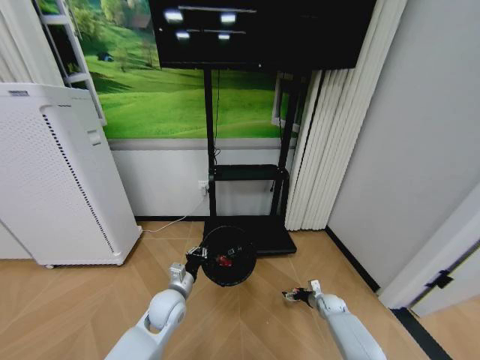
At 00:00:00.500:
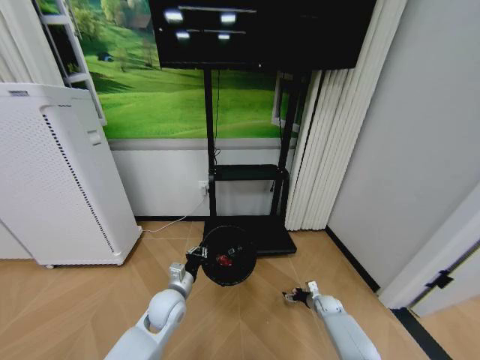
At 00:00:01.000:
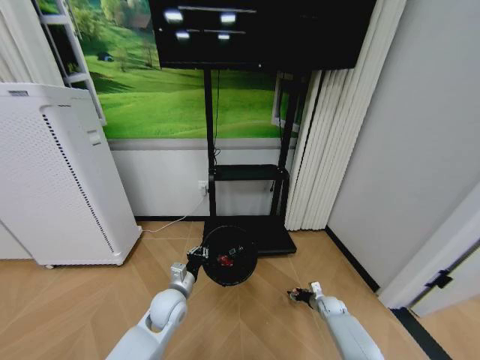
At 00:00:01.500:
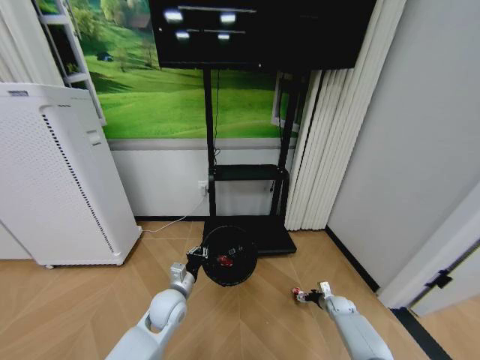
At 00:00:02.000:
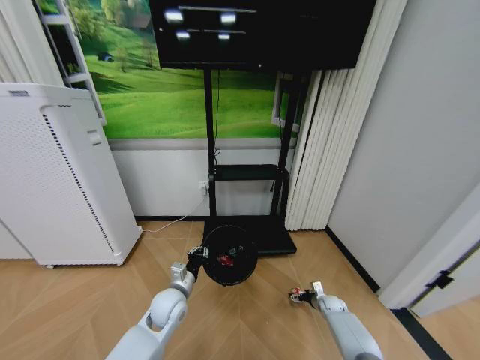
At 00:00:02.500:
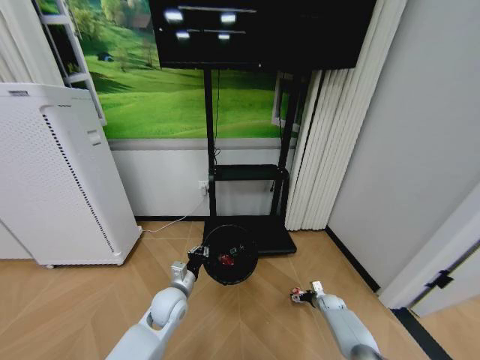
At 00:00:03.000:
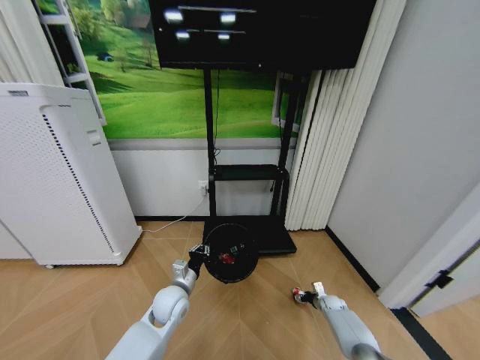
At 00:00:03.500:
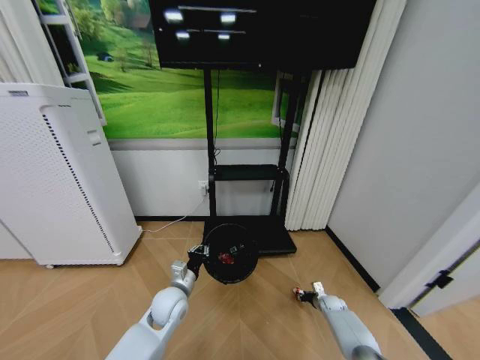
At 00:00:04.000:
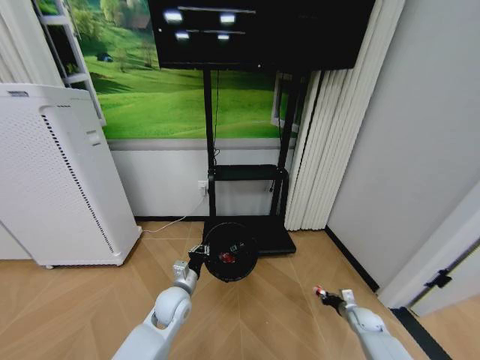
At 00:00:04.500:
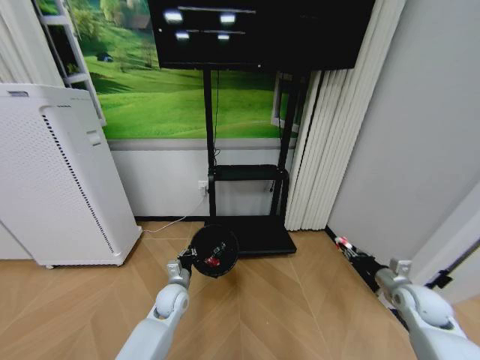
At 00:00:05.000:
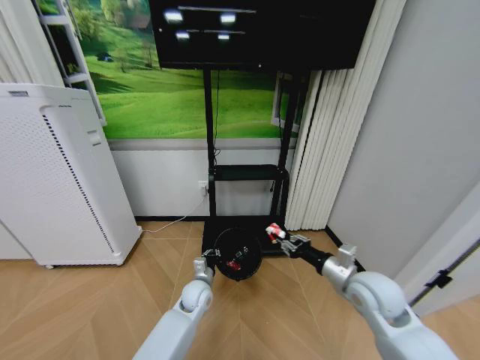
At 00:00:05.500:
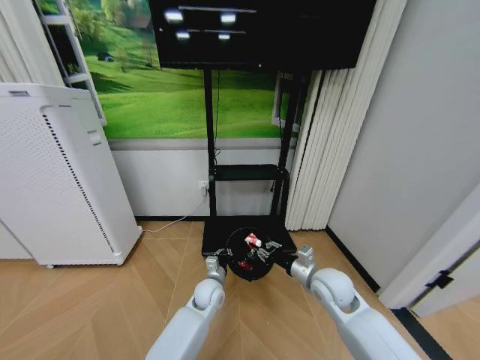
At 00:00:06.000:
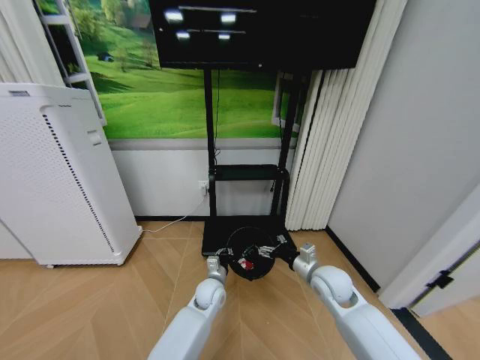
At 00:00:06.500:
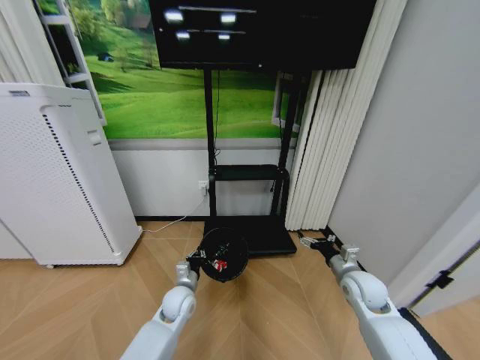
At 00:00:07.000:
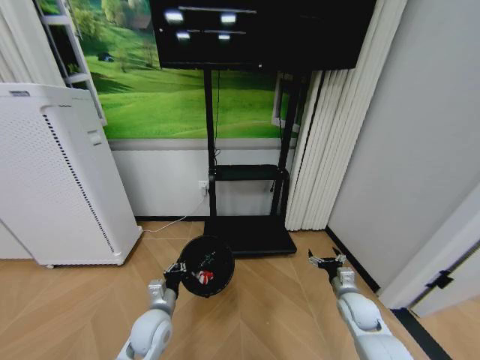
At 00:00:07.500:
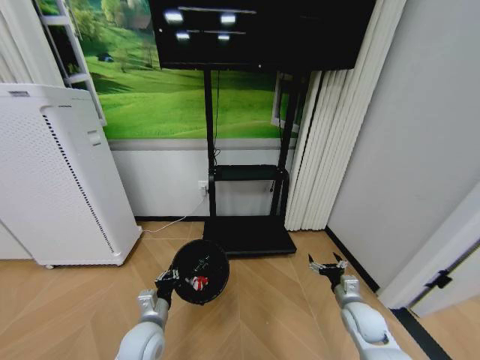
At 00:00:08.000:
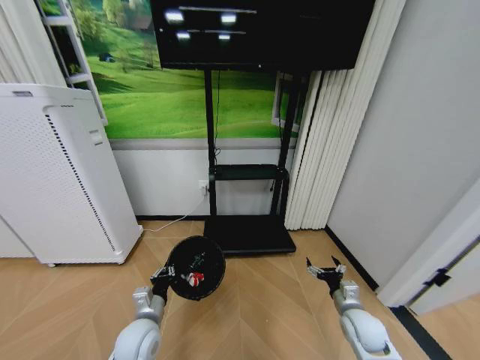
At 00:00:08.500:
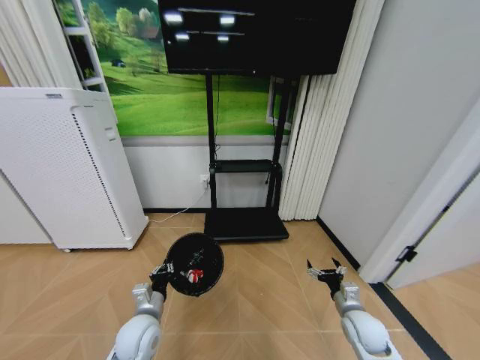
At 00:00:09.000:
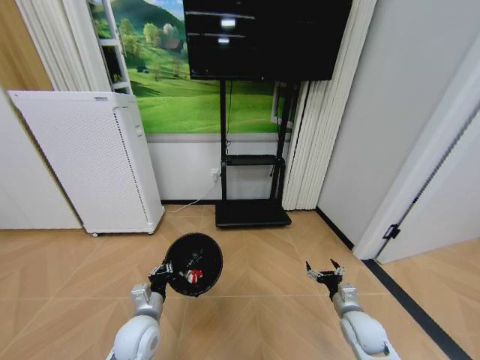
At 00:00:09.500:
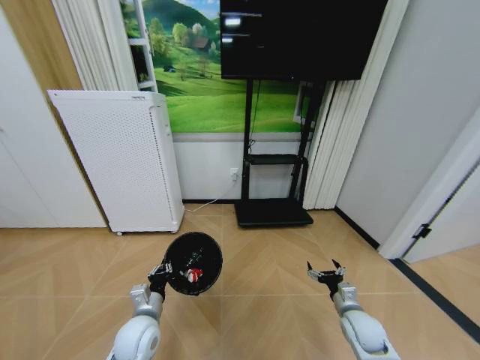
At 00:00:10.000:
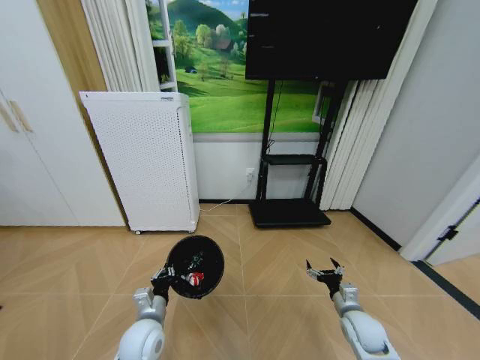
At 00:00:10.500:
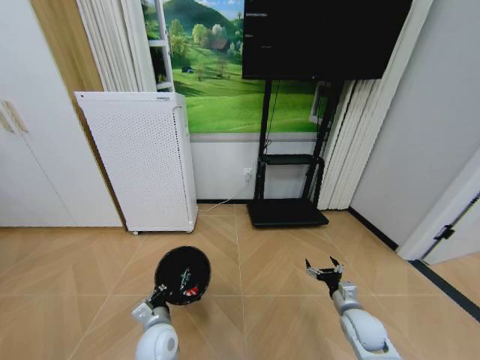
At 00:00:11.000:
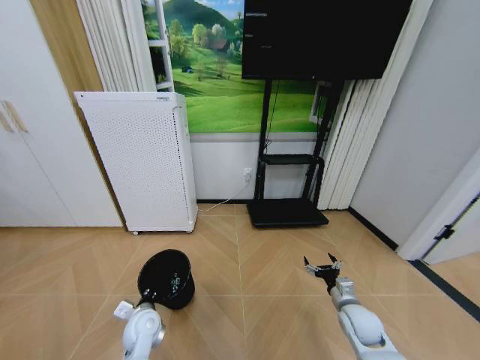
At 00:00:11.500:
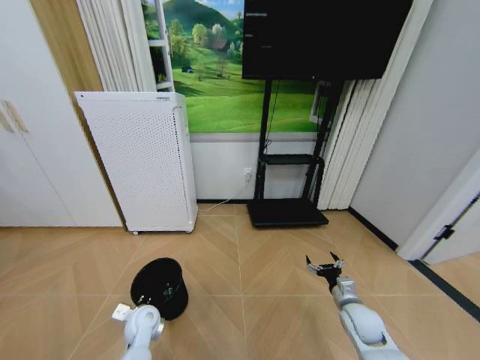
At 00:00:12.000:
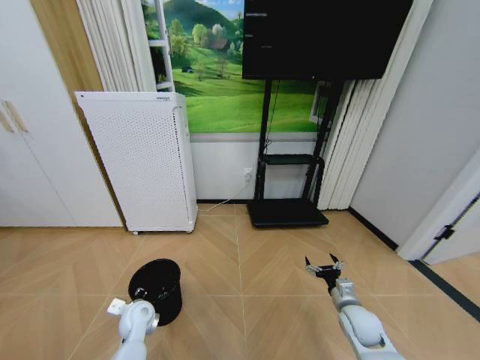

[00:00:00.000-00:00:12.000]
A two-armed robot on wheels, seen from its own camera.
Task of the whole recording: Pick up the trash bin and place the garbage on the floor into it.
00:00:00.000 to 00:00:02.000: The right gripper closes, then reopens.
00:00:02.000 to 00:00:04.000: The right gripper goes roughly 10 cm backward and to the right, and closes up.
00:00:04.000 to 00:00:06.000: The right gripper moves upward and to the left, approximately 35 cm, and opens its fingers. The left gripper moves to the right, forward and downward, some 15 cm.
00:00:06.000 to 00:00:08.000: The right gripper travels downward, to the right and backward by approximately 15 cm; the left gripper moves to the left and backward, approximately 20 cm.
00:00:10.000 to 00:00:12.000: The left gripper heads forward, to the left and downward, covering roughly 10 cm, and opens.

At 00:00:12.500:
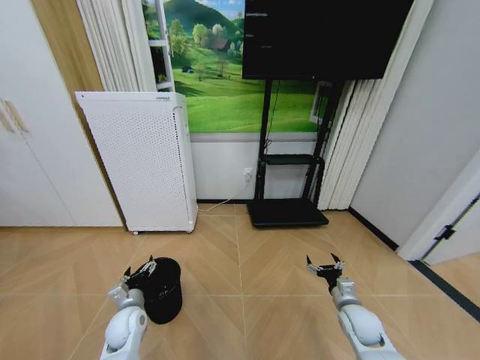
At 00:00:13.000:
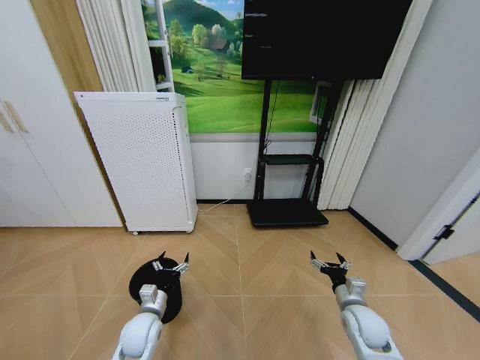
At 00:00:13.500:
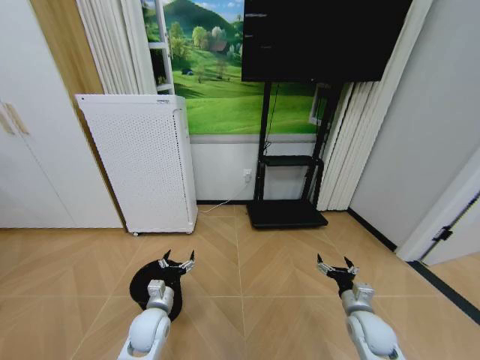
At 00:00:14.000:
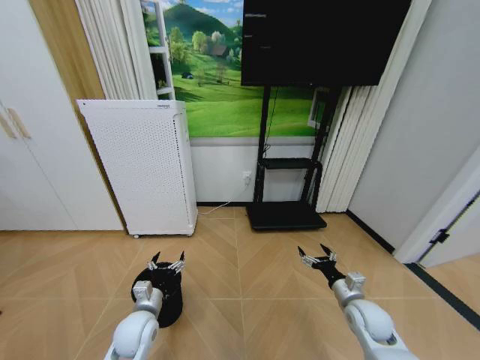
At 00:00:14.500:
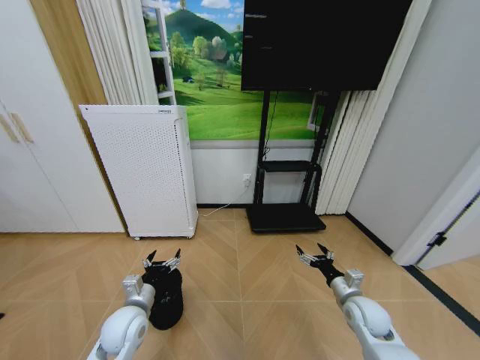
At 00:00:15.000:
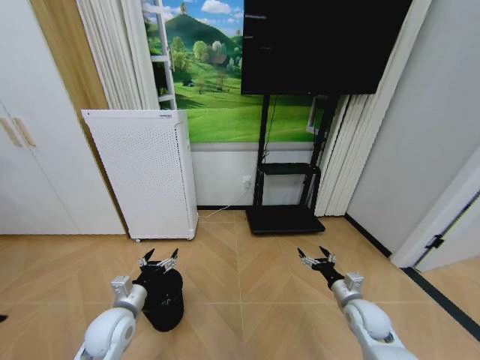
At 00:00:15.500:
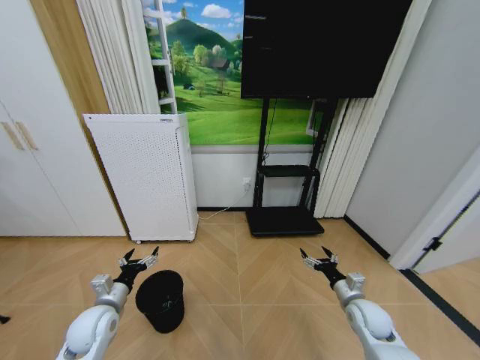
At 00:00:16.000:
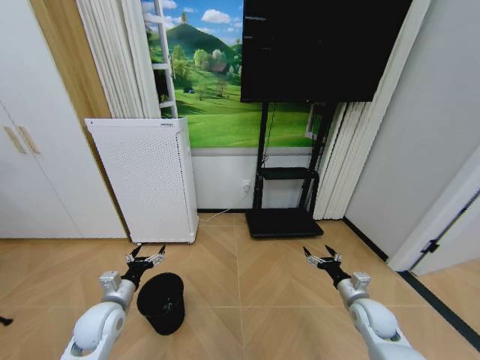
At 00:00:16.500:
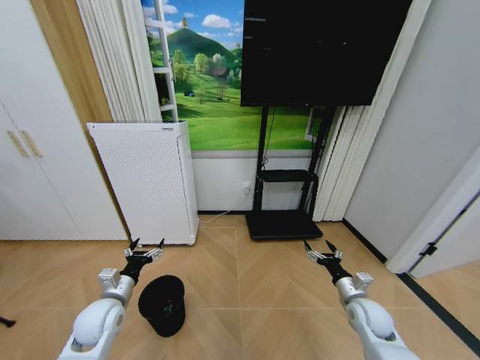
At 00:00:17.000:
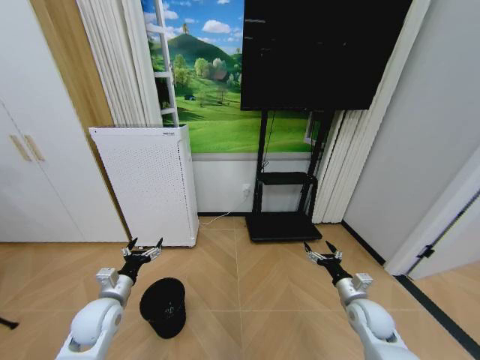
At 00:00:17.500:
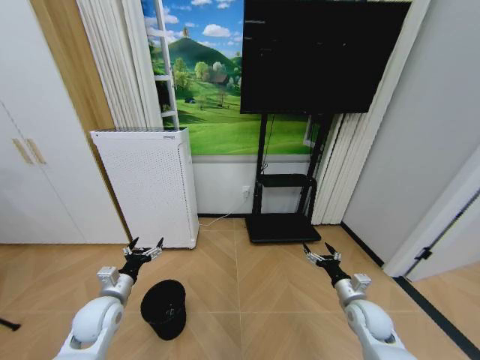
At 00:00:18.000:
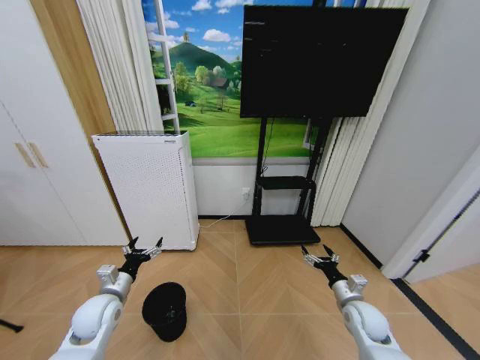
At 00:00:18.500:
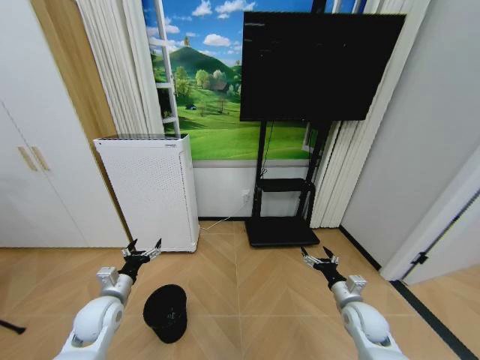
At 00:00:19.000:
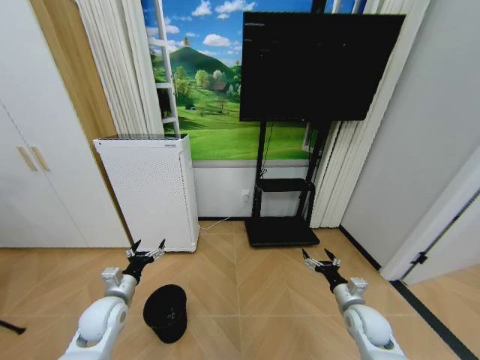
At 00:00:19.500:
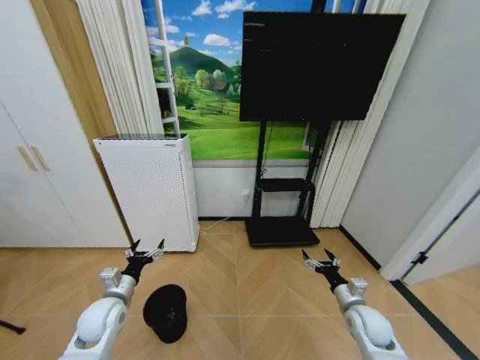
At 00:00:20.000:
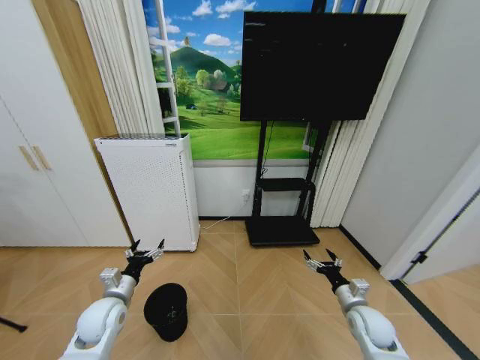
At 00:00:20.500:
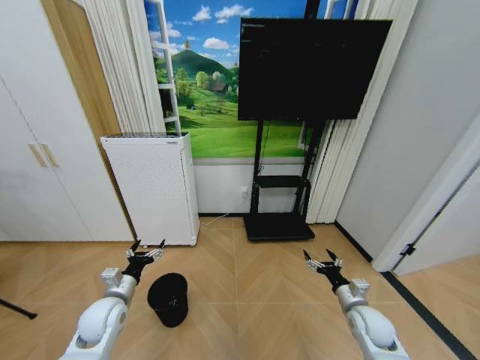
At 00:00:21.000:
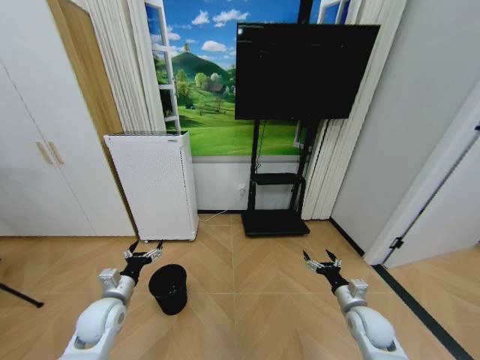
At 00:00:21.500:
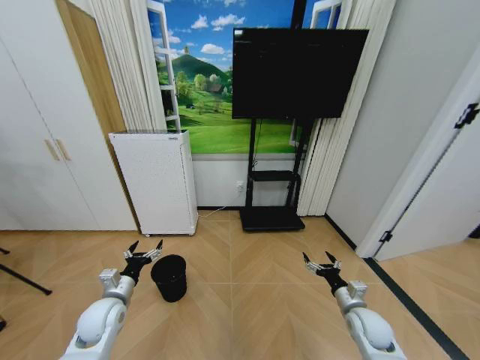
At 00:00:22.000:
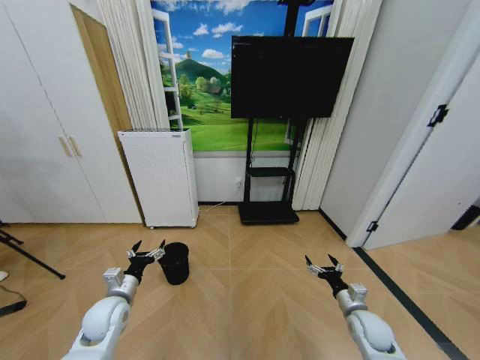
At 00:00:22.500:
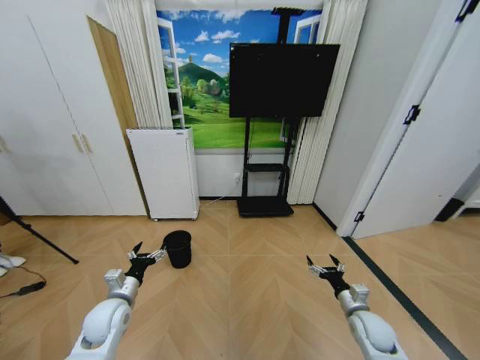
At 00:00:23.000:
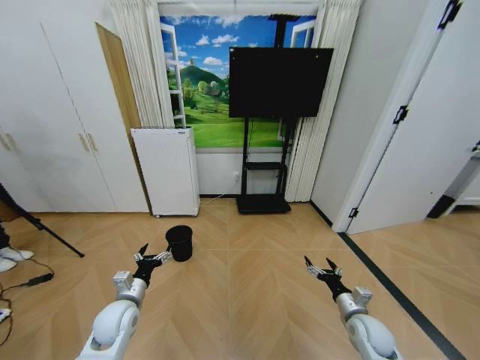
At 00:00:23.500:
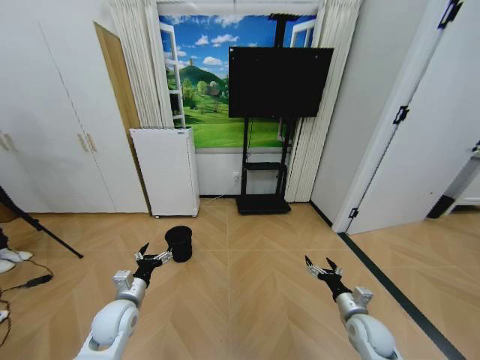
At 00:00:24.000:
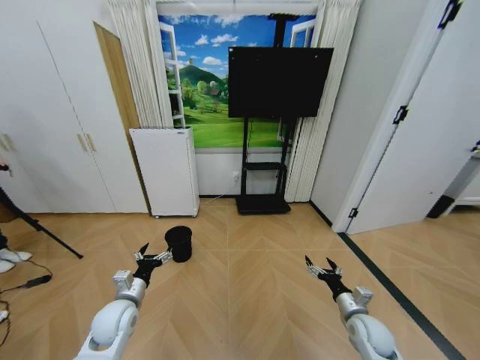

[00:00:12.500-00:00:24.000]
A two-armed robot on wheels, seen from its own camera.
Task of the whole recording: Pick up the trash bin and place the garbage on the floor into it.
00:00:12.500 to 00:00:14.500: The left gripper shifts roughly 5 cm upward.
00:00:14.500 to 00:00:16.500: The left gripper goes approximately 5 cm to the left.
00:00:16.500 to 00:00:18.500: The grippers move only a little.
00:00:18.500 to 00:00:20.000: The two grippers keep their place.
